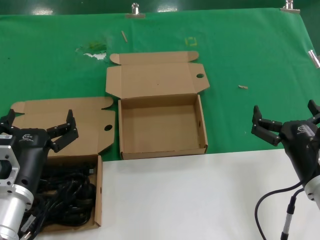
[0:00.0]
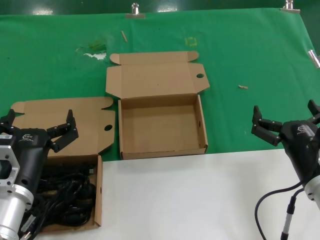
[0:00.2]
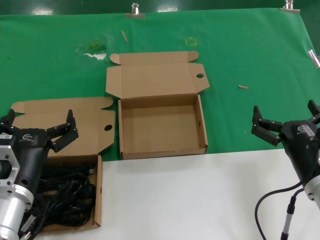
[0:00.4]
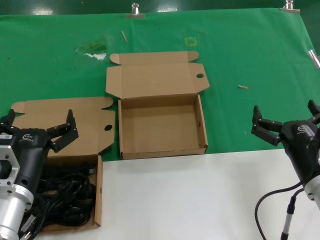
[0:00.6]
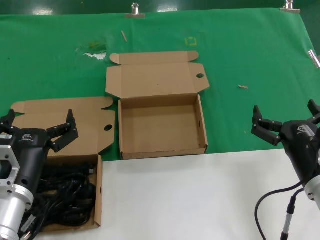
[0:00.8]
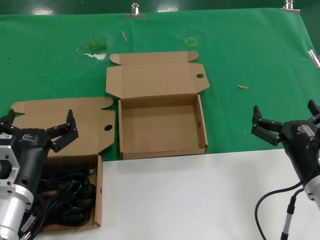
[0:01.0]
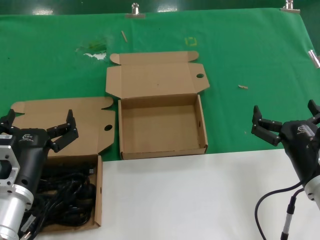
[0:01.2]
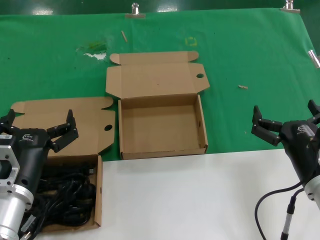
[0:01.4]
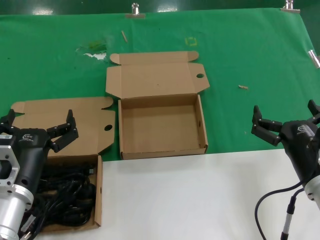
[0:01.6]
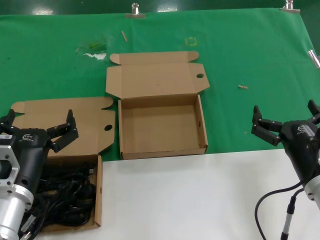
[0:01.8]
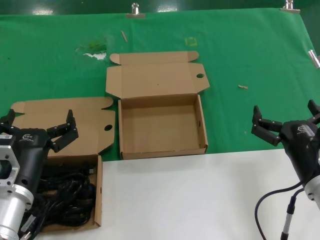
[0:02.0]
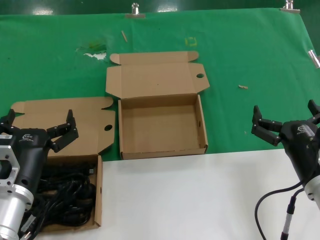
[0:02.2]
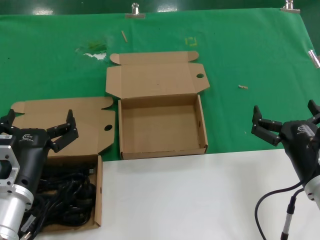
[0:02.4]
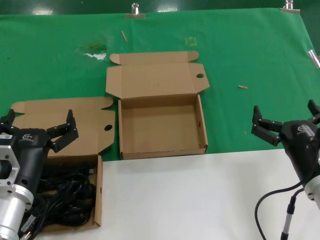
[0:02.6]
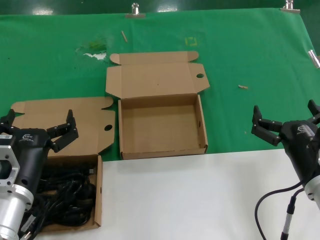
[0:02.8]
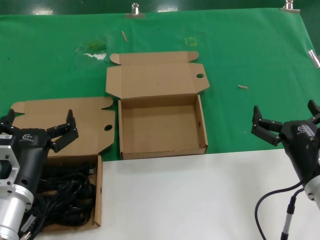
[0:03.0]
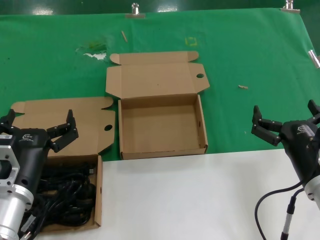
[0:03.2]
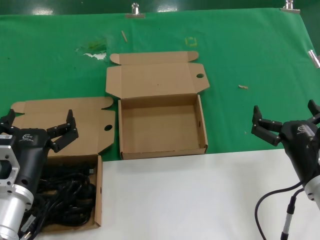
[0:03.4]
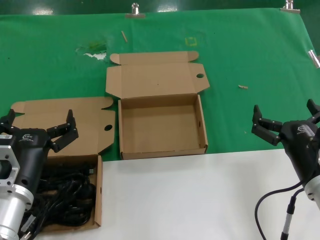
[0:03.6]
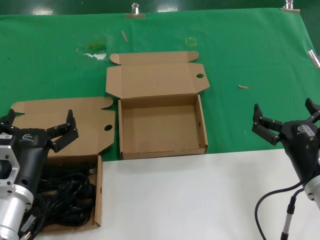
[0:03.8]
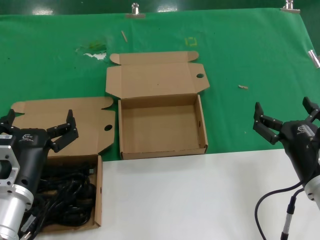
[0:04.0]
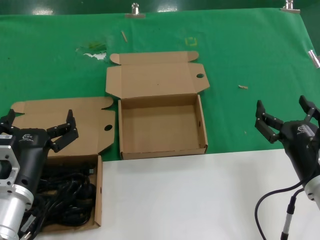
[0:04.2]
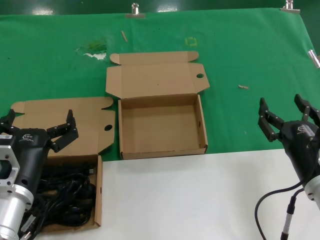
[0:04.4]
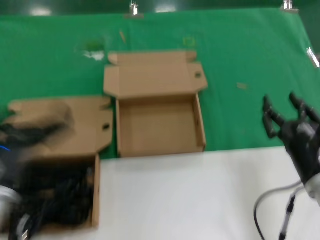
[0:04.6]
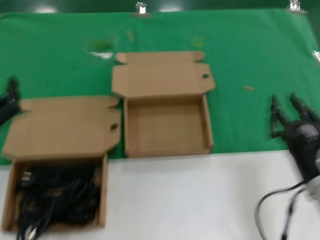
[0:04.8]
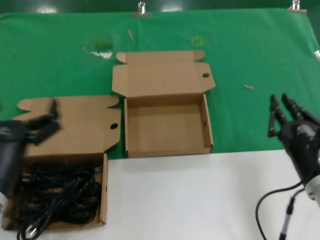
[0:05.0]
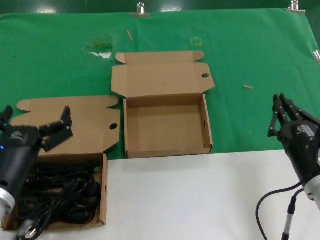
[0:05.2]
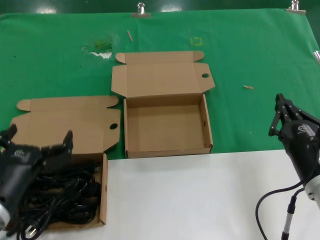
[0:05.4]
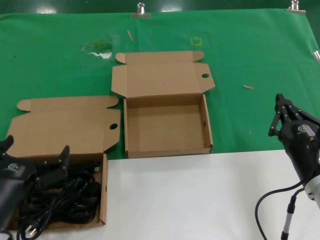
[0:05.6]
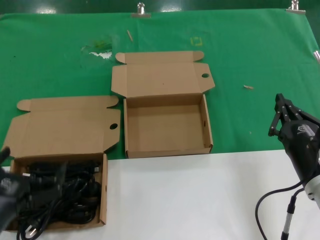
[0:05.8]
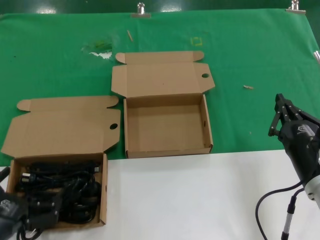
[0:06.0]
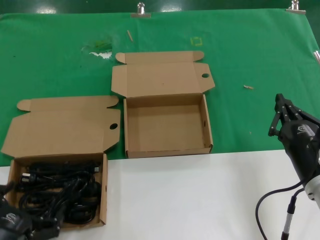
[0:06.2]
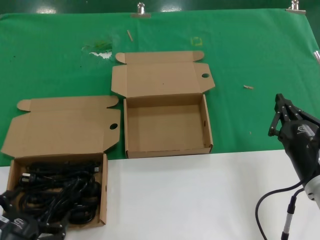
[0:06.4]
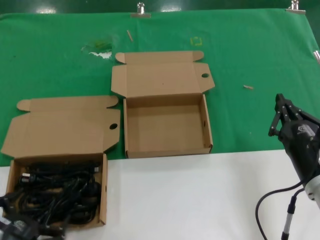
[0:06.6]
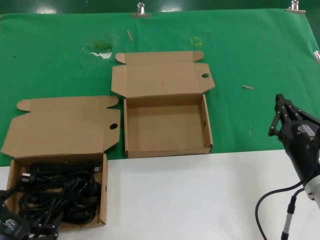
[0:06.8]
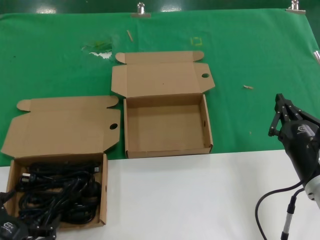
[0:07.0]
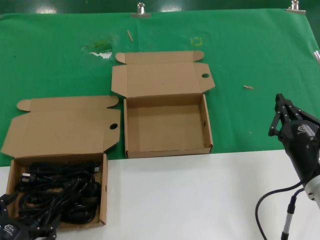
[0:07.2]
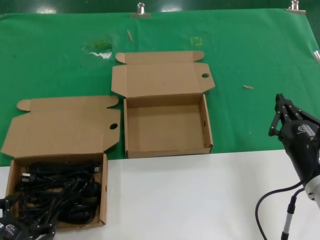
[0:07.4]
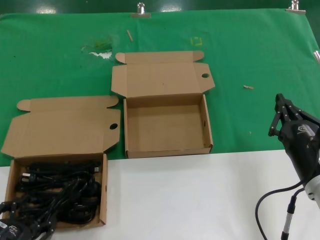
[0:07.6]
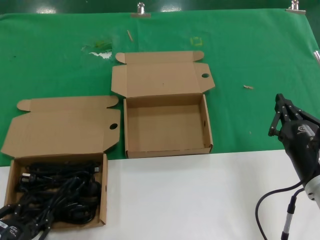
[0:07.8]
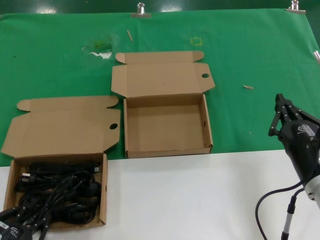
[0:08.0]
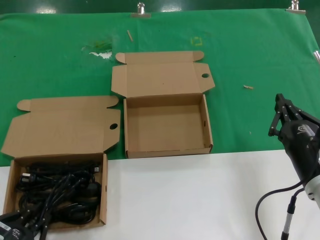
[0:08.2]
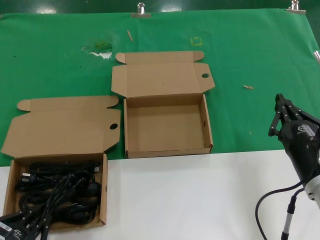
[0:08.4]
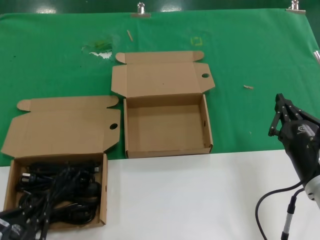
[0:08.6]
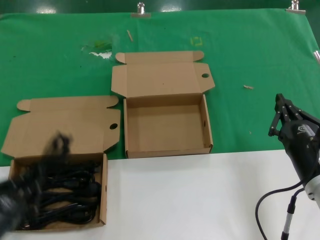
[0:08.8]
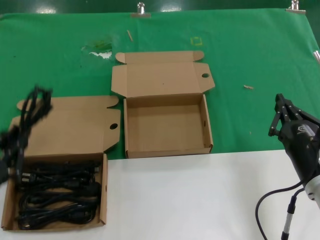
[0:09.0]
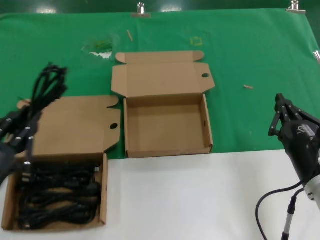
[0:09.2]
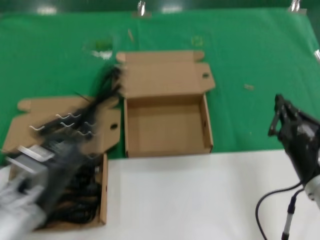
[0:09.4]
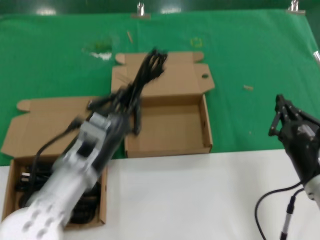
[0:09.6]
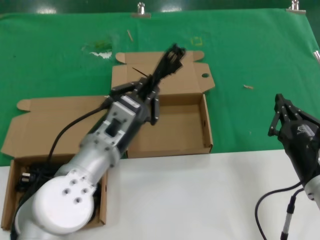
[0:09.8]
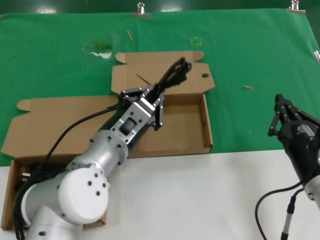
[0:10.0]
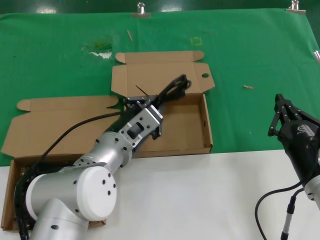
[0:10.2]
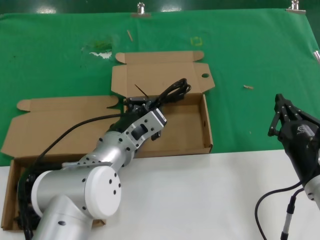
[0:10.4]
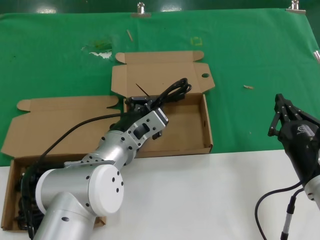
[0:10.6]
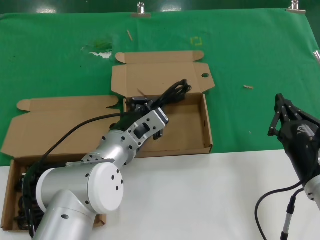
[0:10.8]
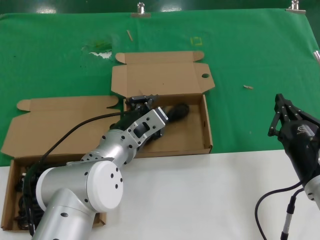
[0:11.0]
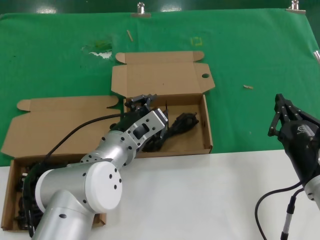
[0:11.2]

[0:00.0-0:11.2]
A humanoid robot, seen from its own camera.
Task of the whole recording: Pick up the power cord from the box containing it and place it in another box.
Step, 0:00.0 to 0:08.4: Grasp the data cable.
Step, 0:08.8 to 0:11.0: Place the data cable in the another box.
0:00.0 to 0:03.2: Both hands stay put.
0:03.2 to 0:04.8: The left hand is displaced to the left and upward by roughly 10 cm.
0:04.8 to 0:06.4: The left hand heads downward and backward, covering approximately 10 cm.
0:06.4 to 0:08.0: The hands move only a little.
0:08.0 to 0:09.6: The left hand moves to the right, forward and upward, roughly 20 cm.
0:09.6 to 0:11.2: The left hand shifts some 15 cm forward and to the right.

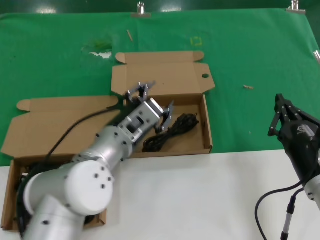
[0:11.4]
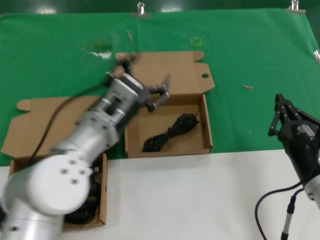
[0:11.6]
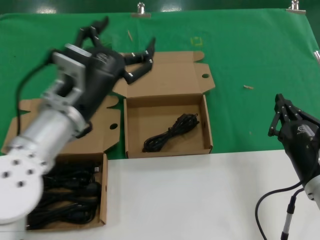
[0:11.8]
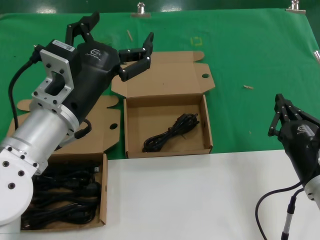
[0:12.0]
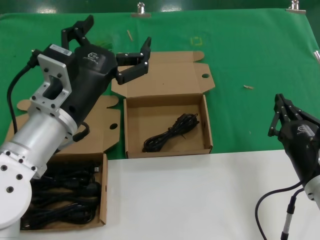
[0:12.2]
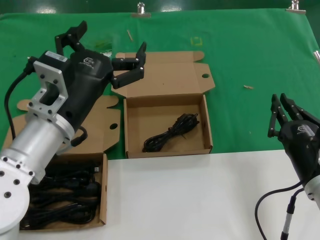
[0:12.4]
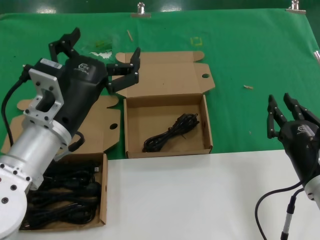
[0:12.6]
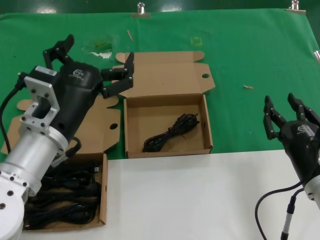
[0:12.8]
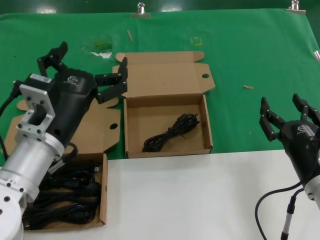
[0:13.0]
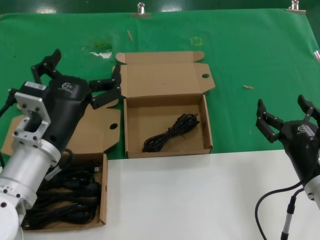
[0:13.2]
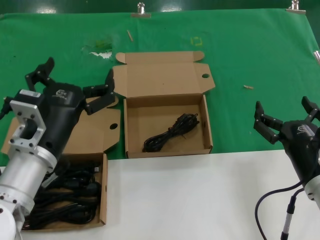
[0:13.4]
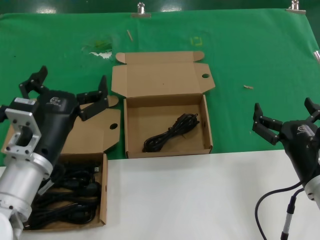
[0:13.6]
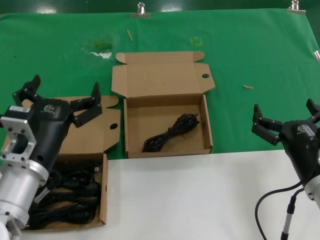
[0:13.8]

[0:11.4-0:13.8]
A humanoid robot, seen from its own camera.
Task of the whole recording: Pick up the power cord from the box containing it and place it in another box.
0:11.4 to 0:12.6: The left hand goes some 10 cm to the left, upward and backward.
0:12.6 to 0:13.8: The left hand is displaced downward by about 5 cm.
